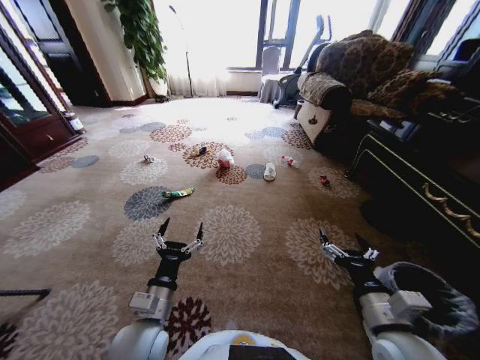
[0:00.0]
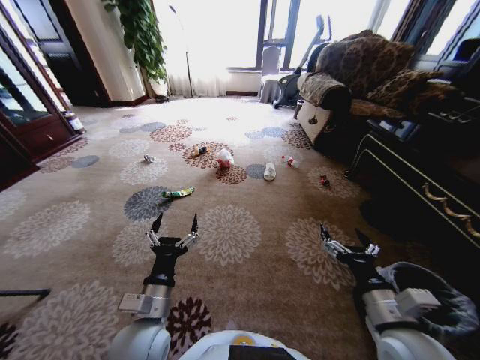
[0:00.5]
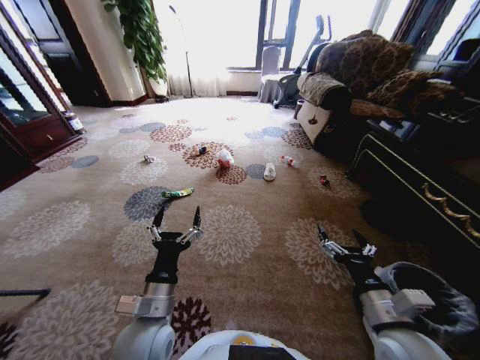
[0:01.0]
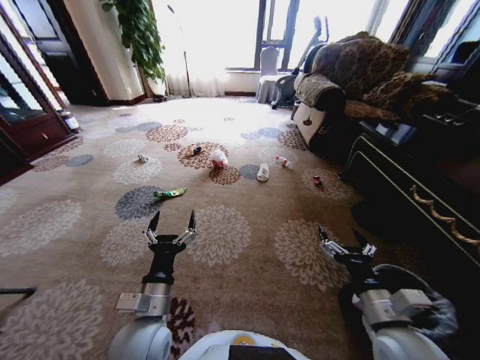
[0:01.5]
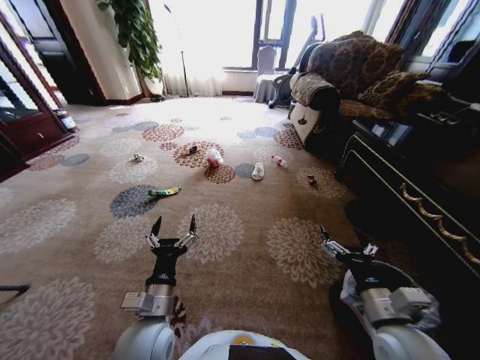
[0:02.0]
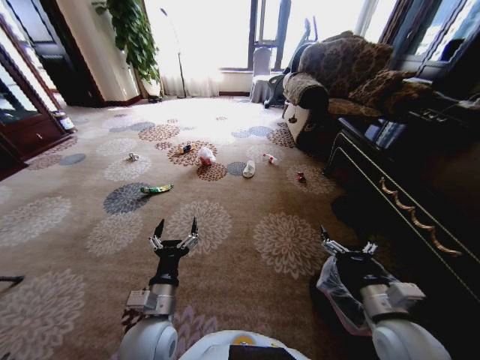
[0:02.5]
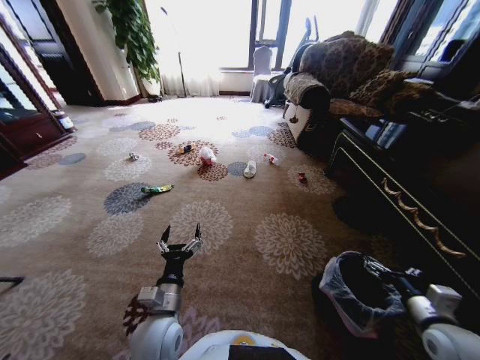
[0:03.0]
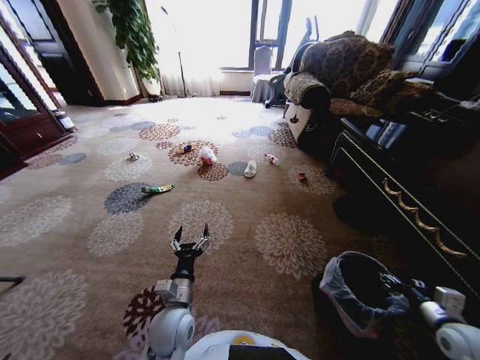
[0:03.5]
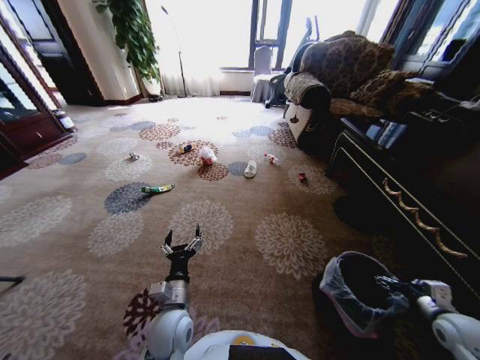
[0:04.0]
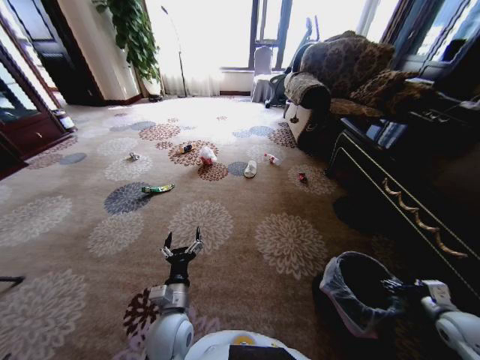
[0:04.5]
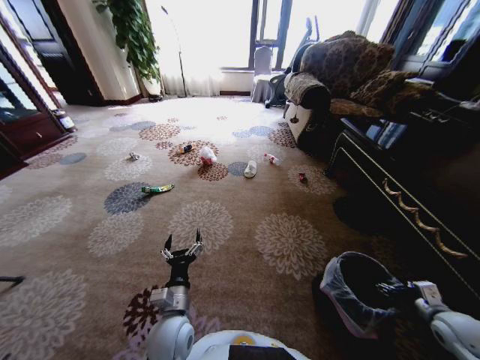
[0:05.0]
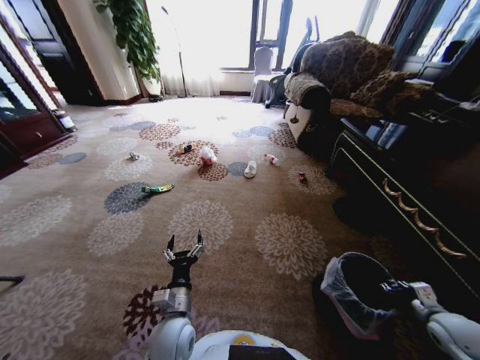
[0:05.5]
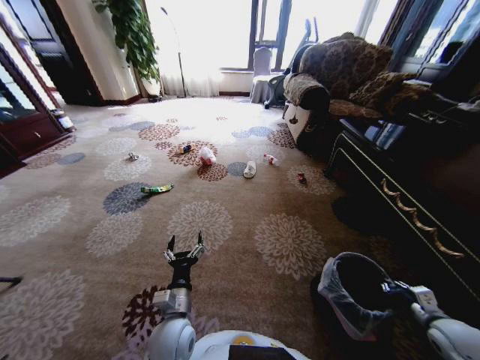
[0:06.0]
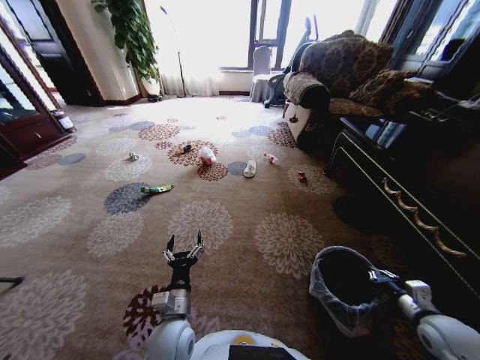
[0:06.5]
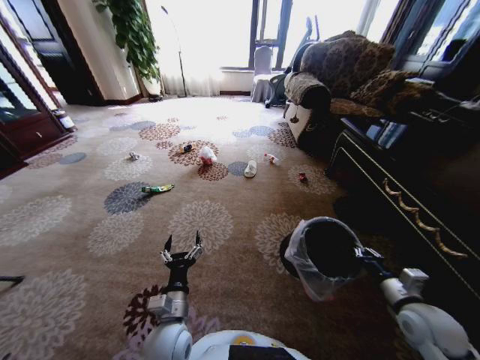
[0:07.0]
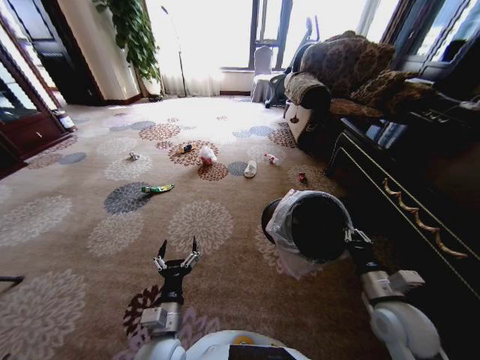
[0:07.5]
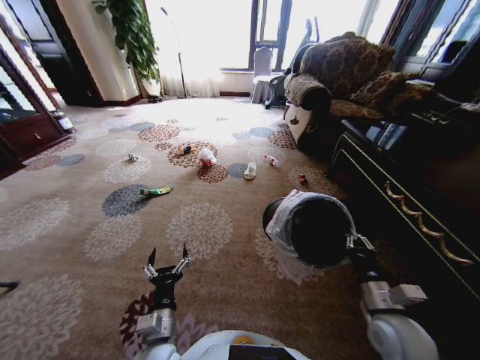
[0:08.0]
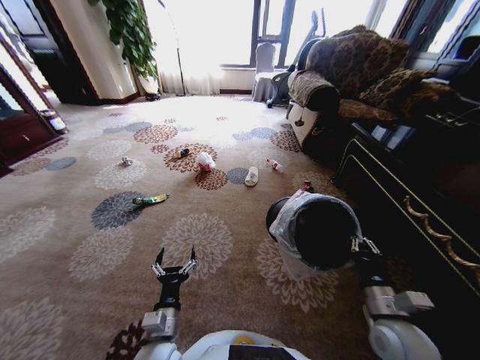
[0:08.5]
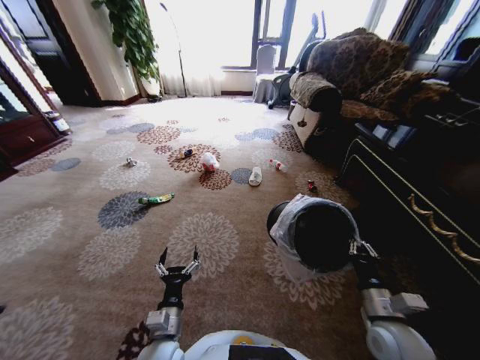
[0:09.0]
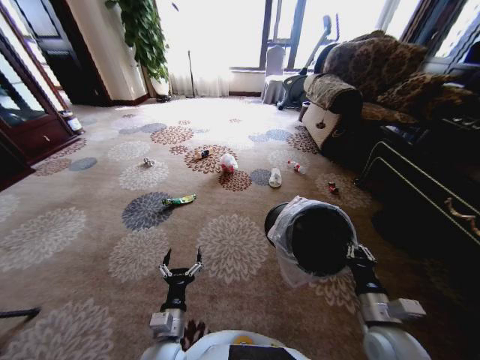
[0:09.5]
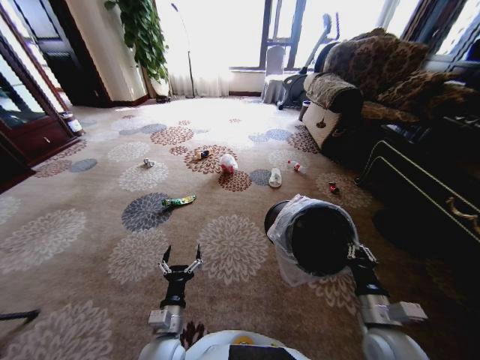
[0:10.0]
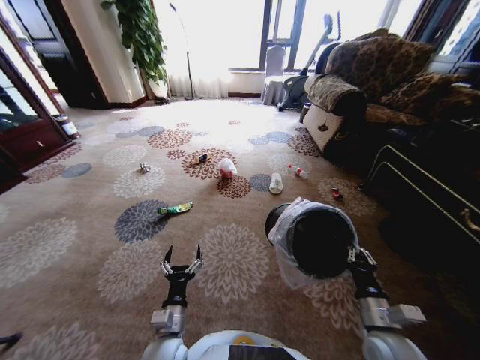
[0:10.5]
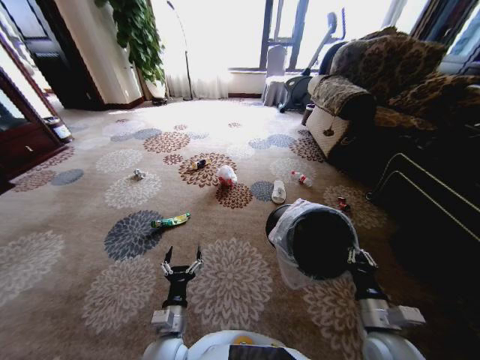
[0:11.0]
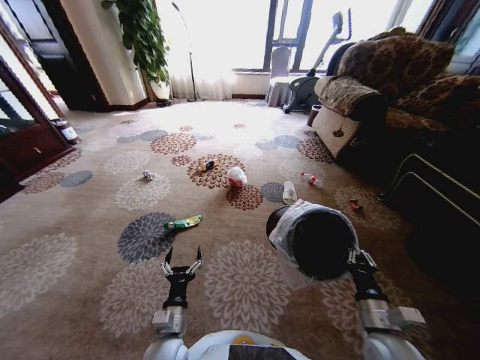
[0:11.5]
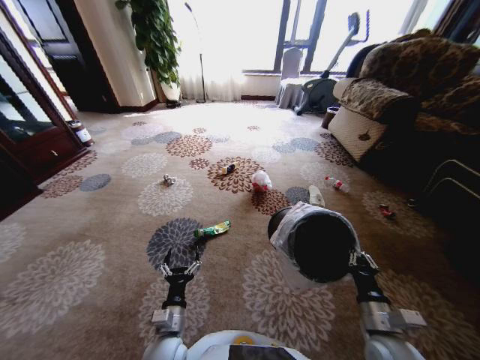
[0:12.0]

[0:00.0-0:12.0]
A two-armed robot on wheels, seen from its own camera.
Task of the whole recording: Pick up the trash from the ground and place it into the trash bin.
0:02.0 to 0:04.0: The right gripper shifts about 25 cm to the right; the left gripper shifts approximately 5 cm downward.
0:04.0 to 0:06.0: The right gripper closes its fingers.
0:06.0 to 0:08.0: The right gripper is displaced to the left by about 20 cm. The left gripper shifts by about 5 cm.

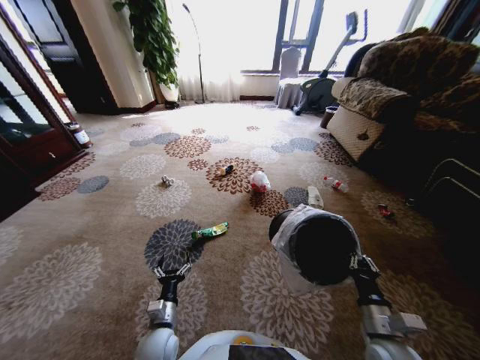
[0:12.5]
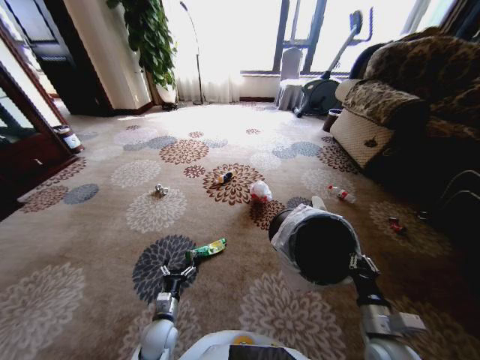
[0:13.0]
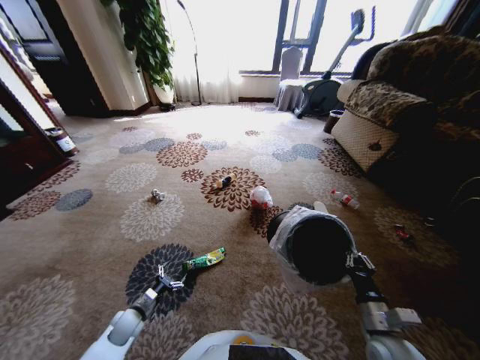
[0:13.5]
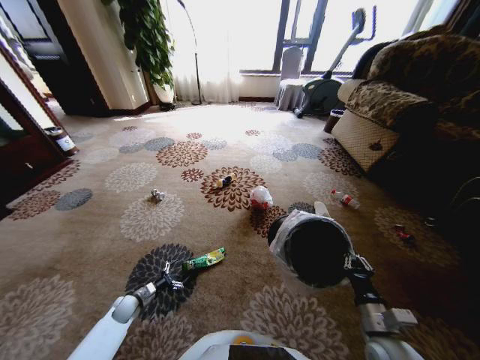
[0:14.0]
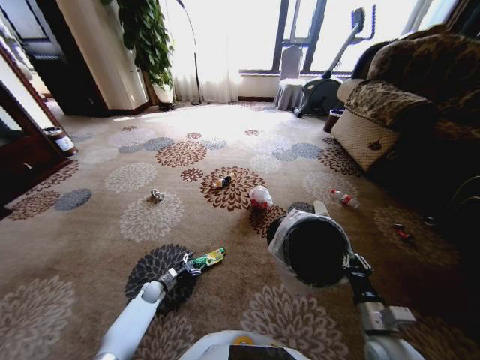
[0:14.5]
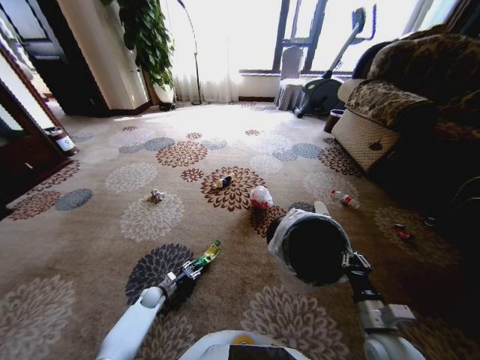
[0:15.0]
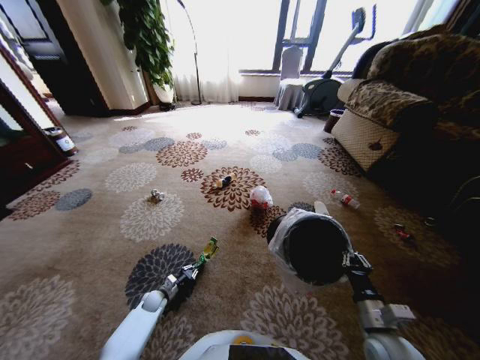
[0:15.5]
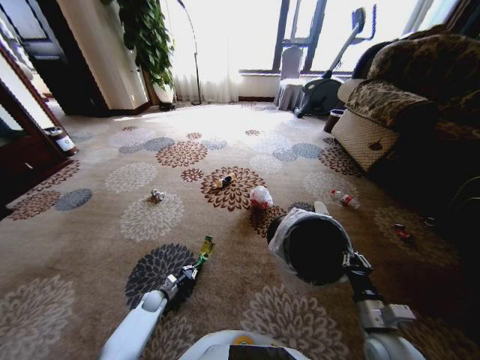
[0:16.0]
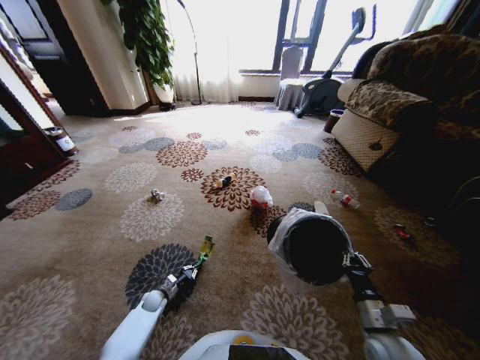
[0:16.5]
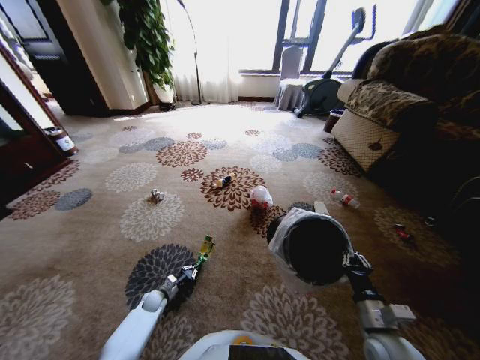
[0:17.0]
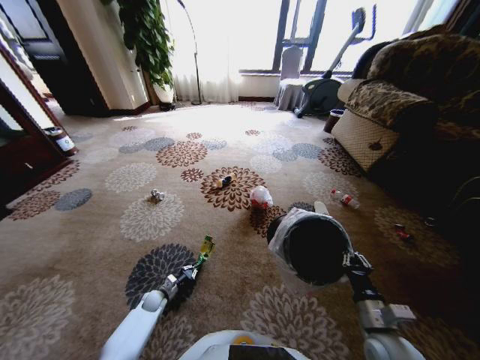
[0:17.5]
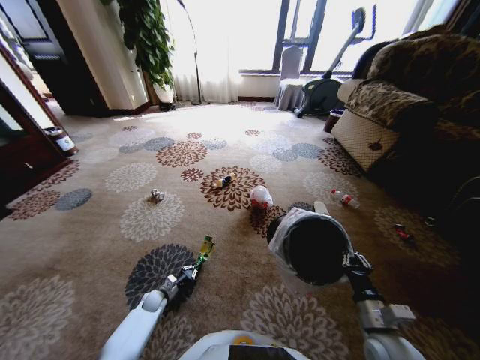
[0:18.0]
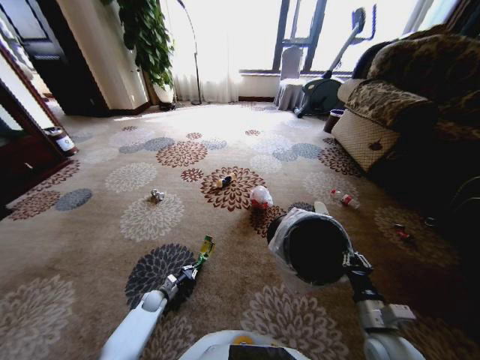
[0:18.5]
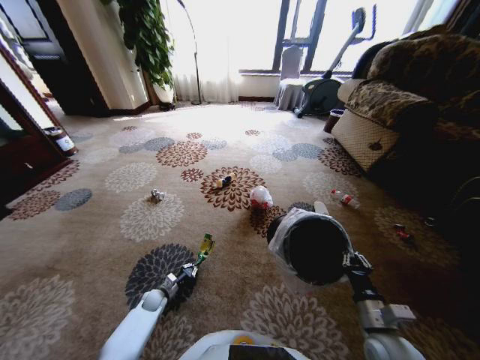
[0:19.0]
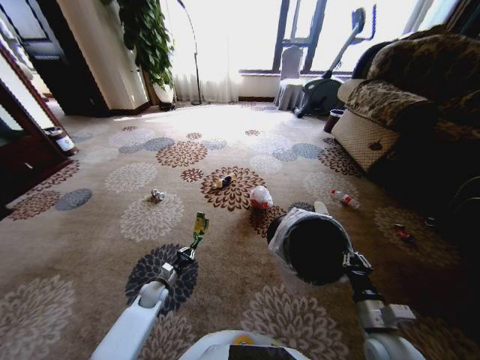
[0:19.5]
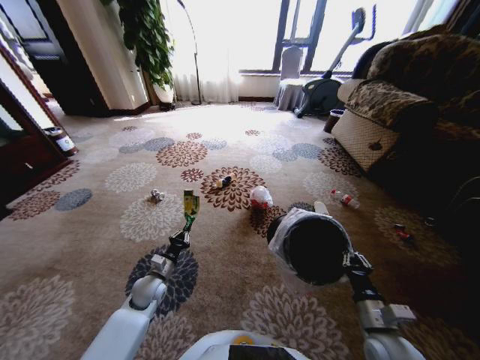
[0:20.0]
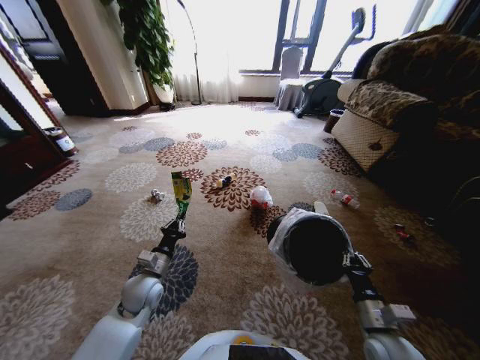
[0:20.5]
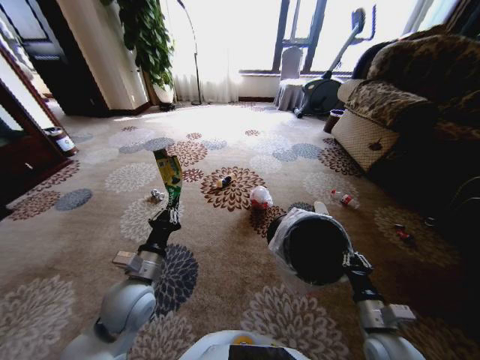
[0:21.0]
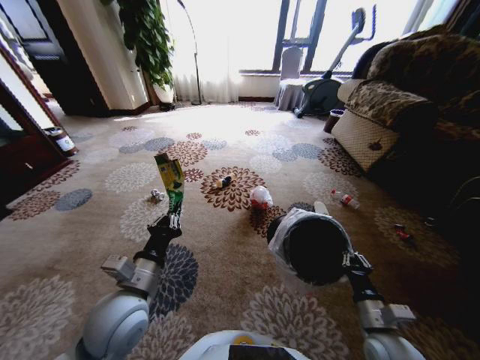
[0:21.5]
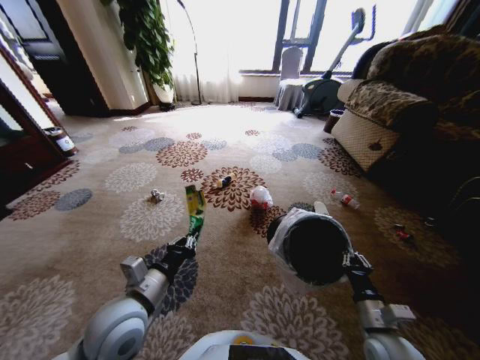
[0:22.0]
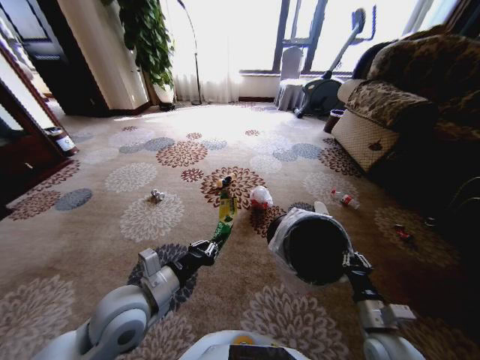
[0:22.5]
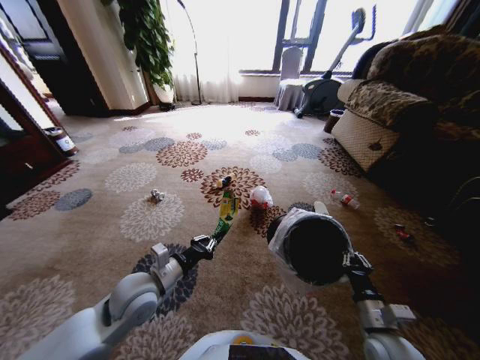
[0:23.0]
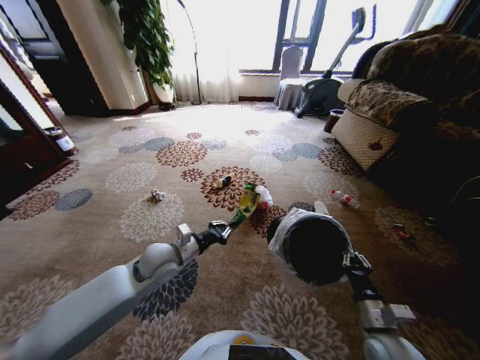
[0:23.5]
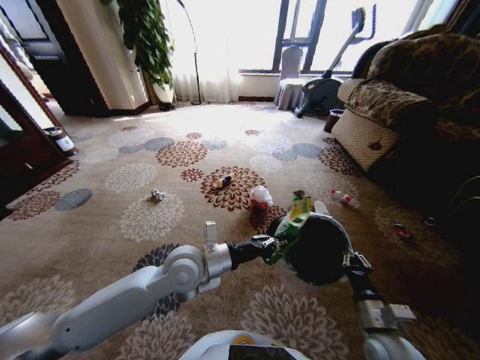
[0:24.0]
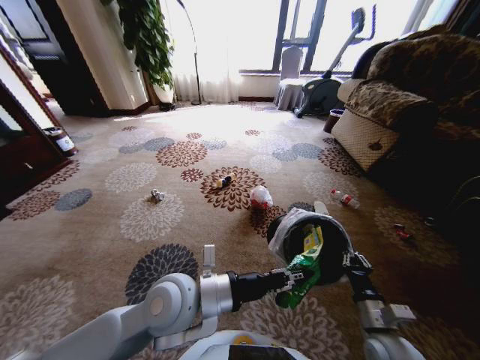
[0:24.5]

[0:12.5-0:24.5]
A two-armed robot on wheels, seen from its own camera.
Task of the whole recording: Pick up the trash from the ground and place it into the trash bin.
0:12.5 to 0:14.5: The left gripper travels forward, downward and to the left by roughly 25 cm.
0:14.5 to 0:16.5: The left gripper closes up.
0:16.5 to 0:18.5: Neither gripper changes place.
0:18.5 to 0:20.5: The left gripper goes about 25 cm upward.
0:20.5 to 0:22.5: The left gripper heads upward and backward, covering roughly 15 cm.
0:22.5 to 0:24.5: The left gripper heads to the right, covering approximately 10 cm, and travels forward and back again, roughly 10 cm each way.

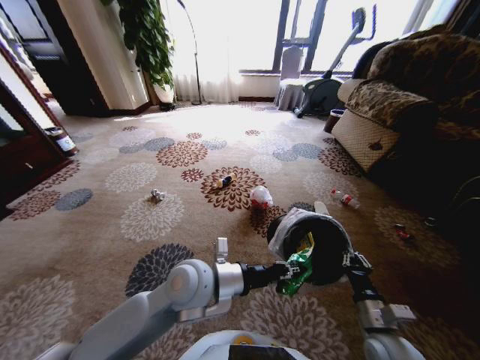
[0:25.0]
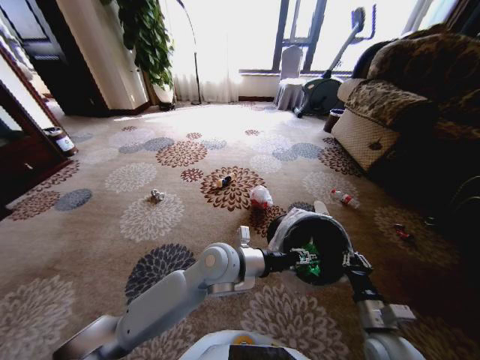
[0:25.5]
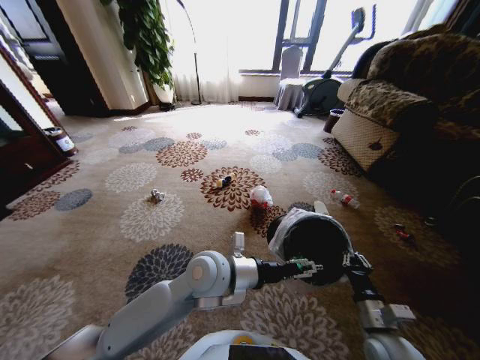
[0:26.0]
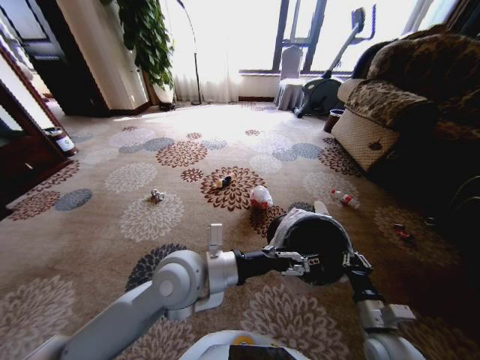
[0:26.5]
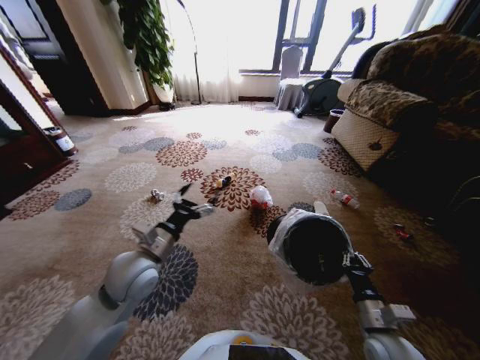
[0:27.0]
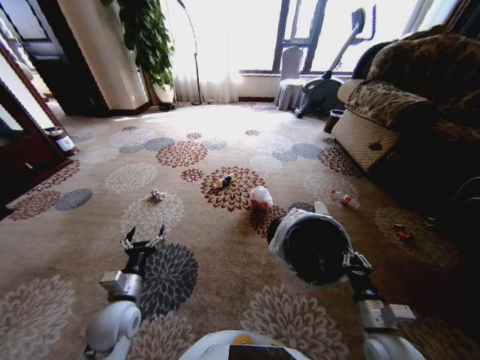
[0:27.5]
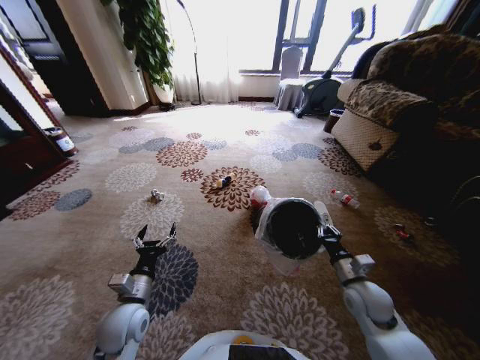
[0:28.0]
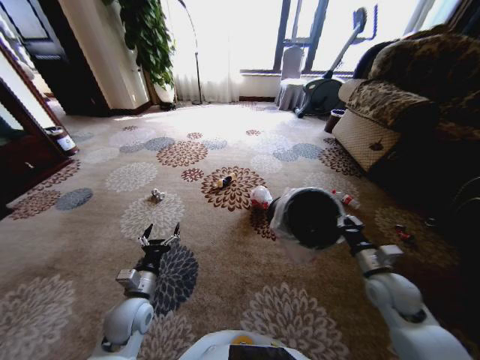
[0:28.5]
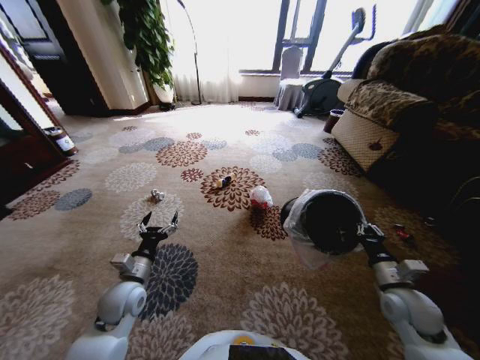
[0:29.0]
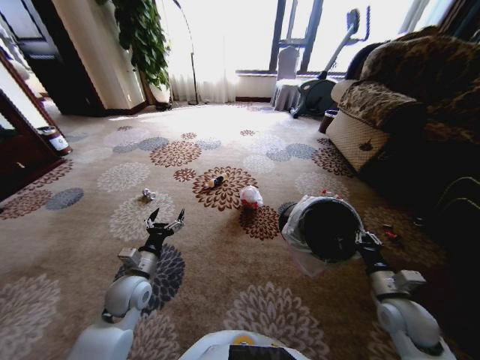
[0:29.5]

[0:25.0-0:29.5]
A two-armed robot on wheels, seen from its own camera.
Task of the whole recording: Pick up the trash from the ground and place it into the trash bin.
0:25.0 to 0:27.0: The left gripper goes about 10 cm to the left, and opens.
0:27.0 to 0:29.5: The left gripper is displaced downward and to the left by about 15 cm. The right gripper goes about 10 cm forward and to the right.
